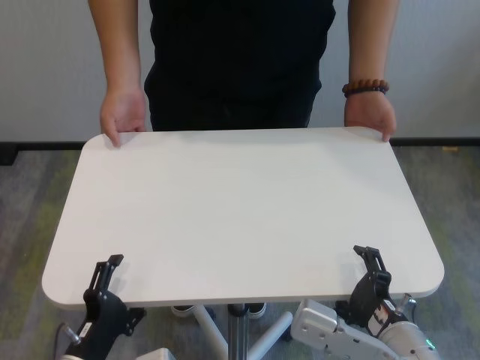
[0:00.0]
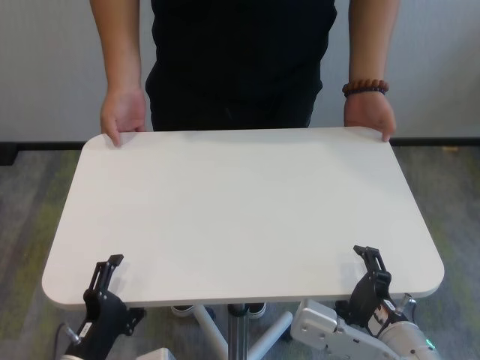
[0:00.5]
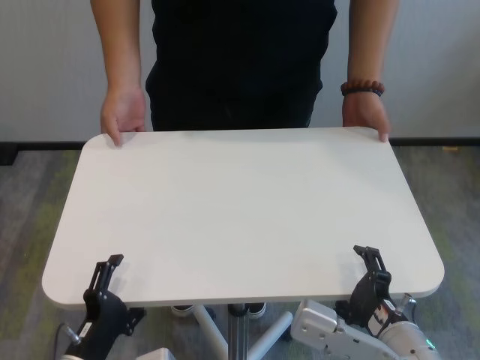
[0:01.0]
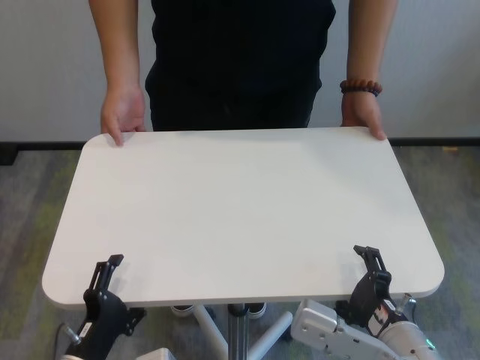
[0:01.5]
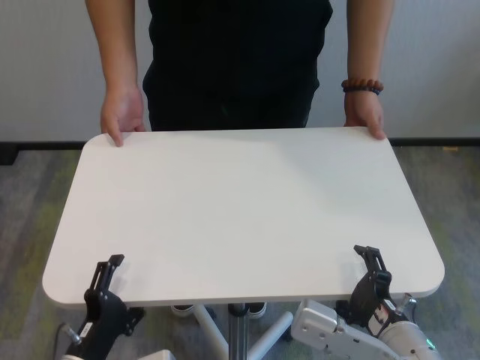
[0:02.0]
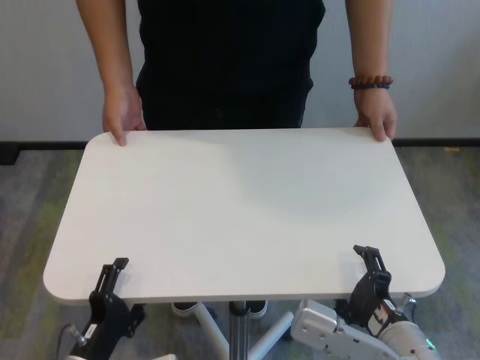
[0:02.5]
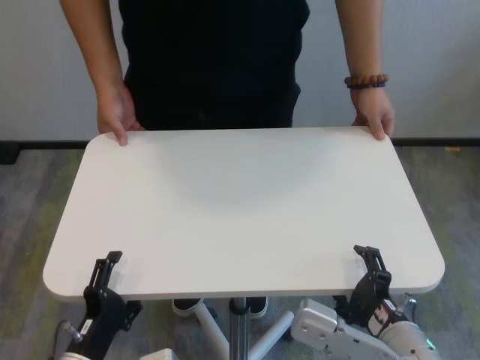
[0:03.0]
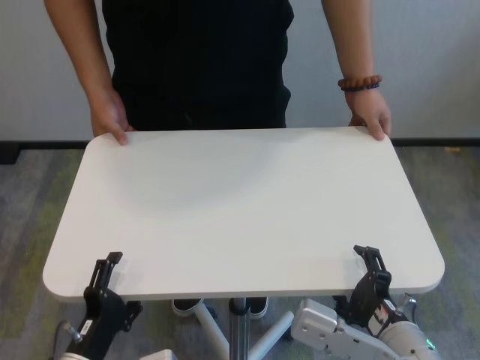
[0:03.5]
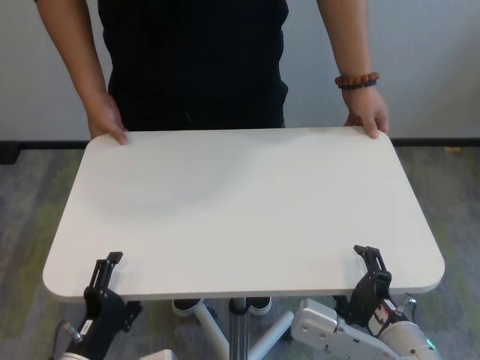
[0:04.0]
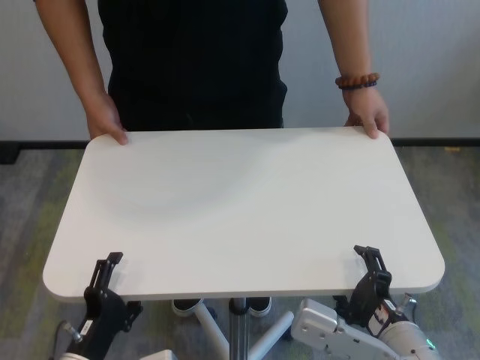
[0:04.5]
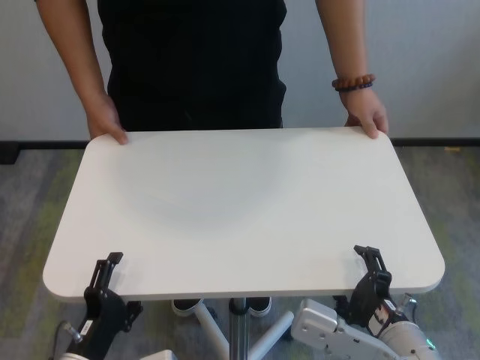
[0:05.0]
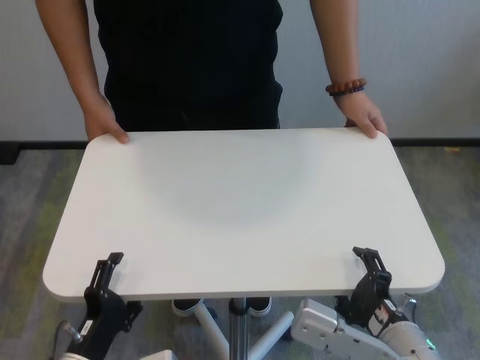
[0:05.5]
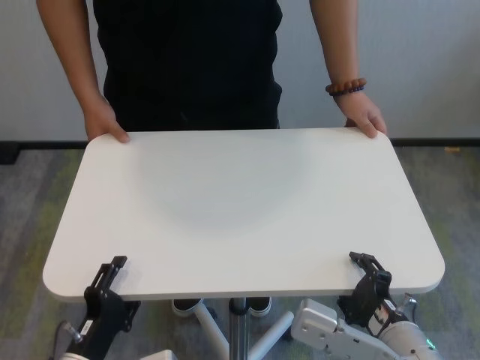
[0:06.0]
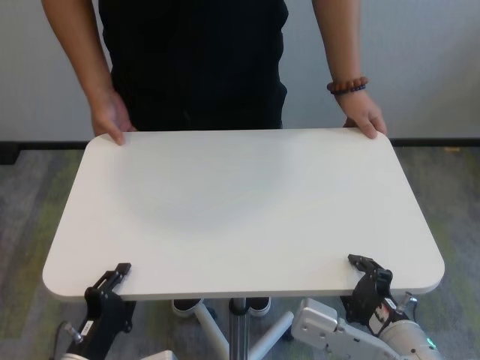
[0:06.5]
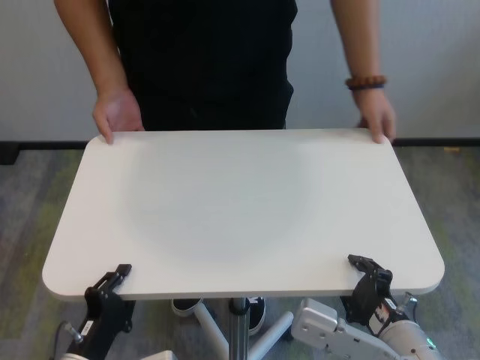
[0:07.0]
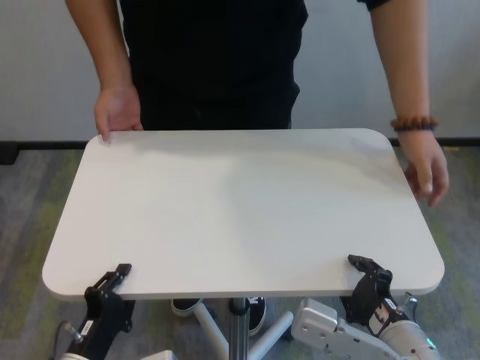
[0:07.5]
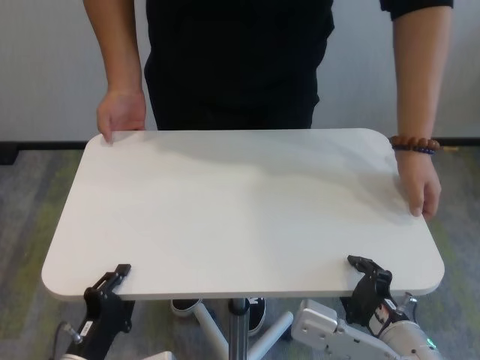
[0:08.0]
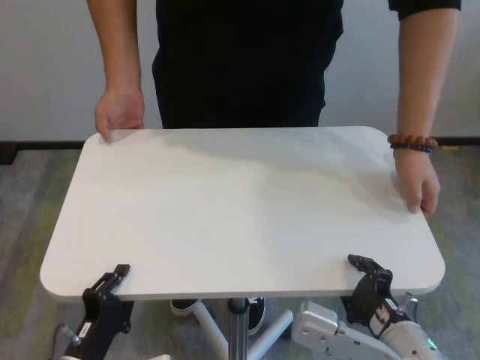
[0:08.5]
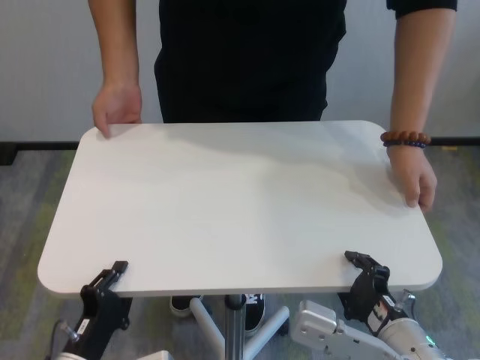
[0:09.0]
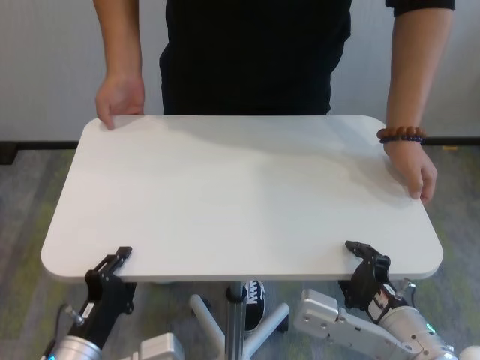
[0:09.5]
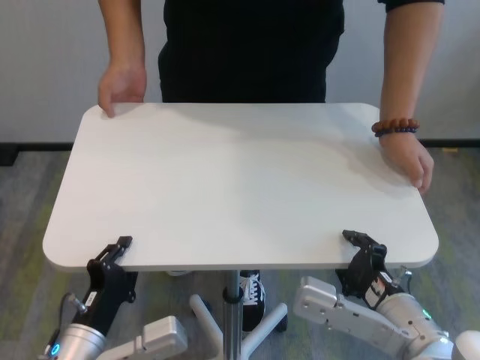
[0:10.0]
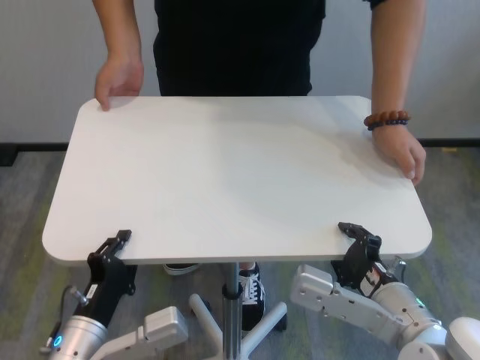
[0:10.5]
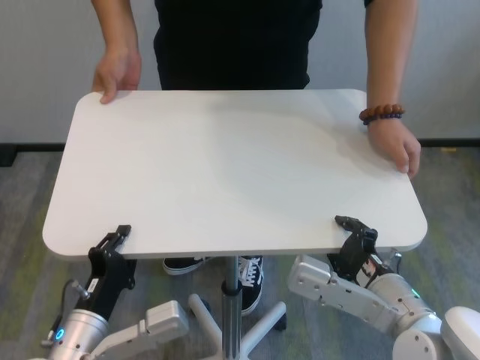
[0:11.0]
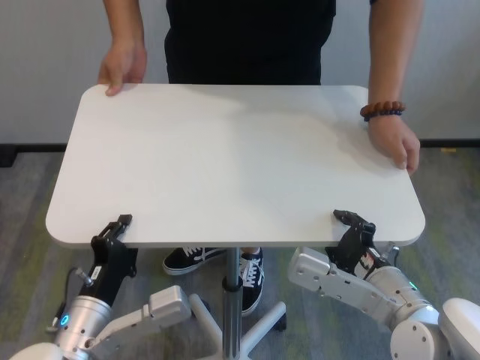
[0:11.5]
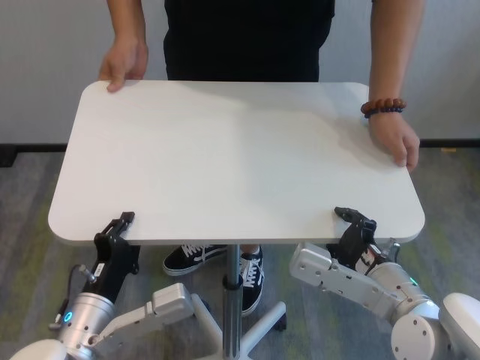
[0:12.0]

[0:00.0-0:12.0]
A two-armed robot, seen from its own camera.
Task of the whole recording: human machine collaborative table moving.
Step, 0:00.0 to 0:06.5: Grasp the table with both grippers.

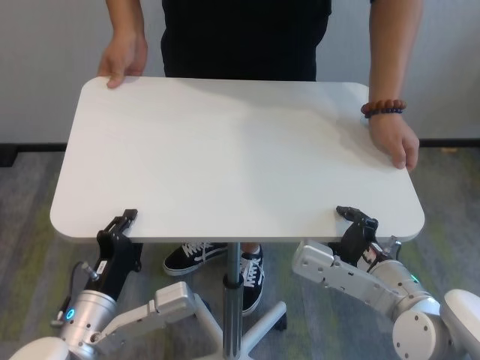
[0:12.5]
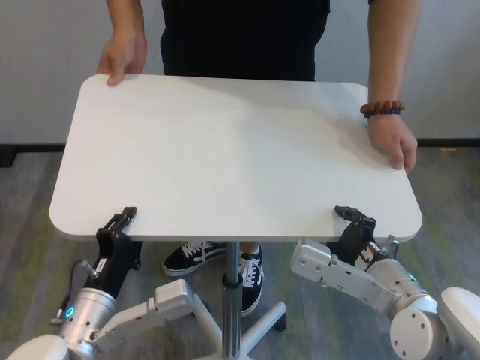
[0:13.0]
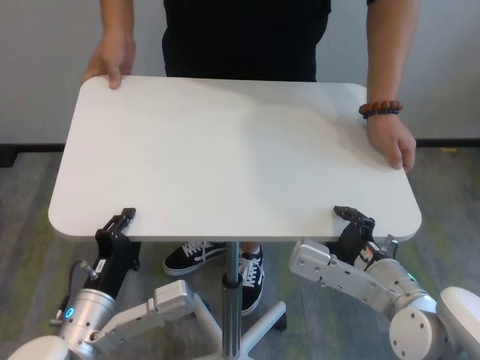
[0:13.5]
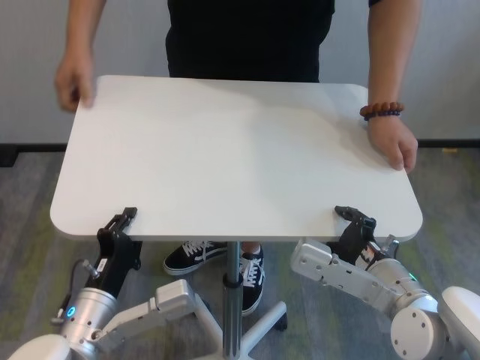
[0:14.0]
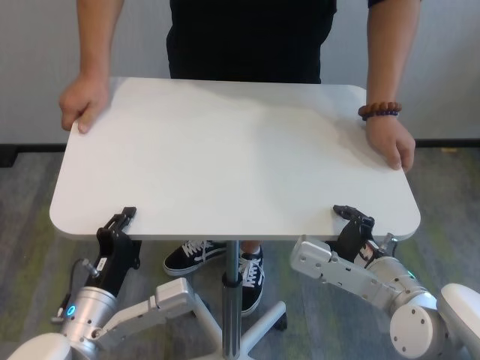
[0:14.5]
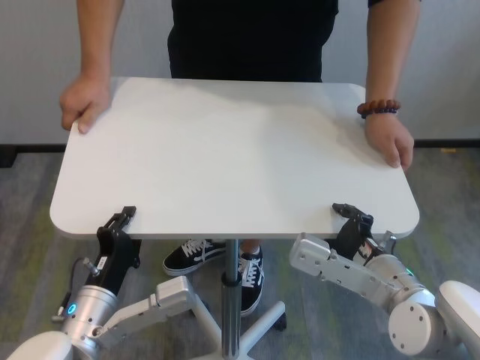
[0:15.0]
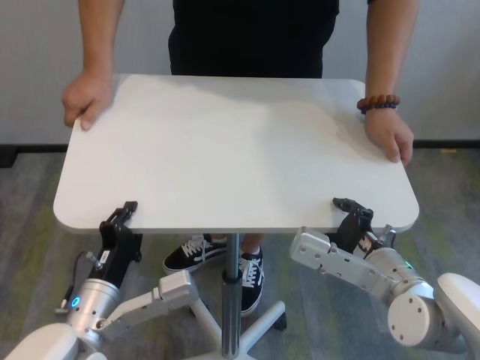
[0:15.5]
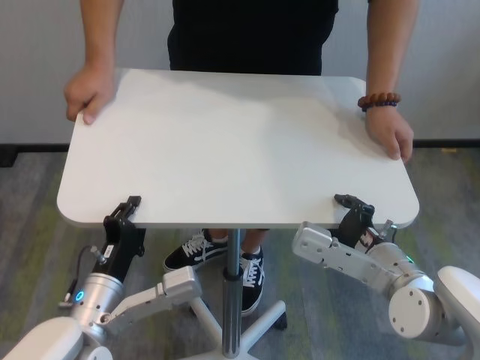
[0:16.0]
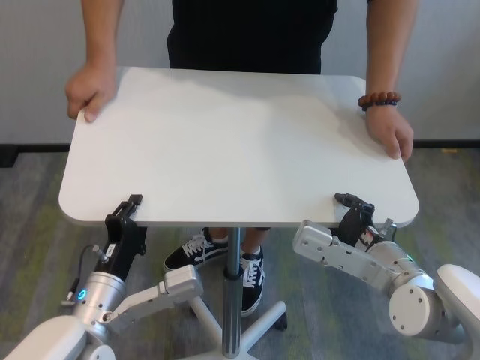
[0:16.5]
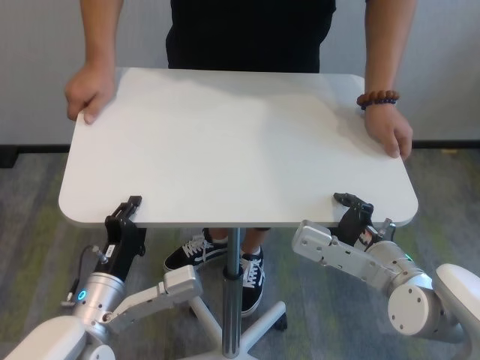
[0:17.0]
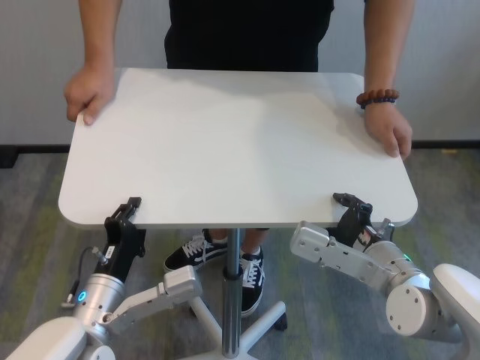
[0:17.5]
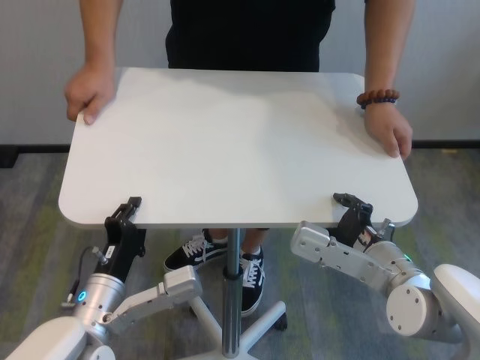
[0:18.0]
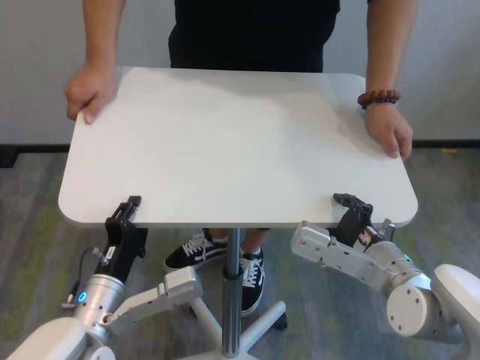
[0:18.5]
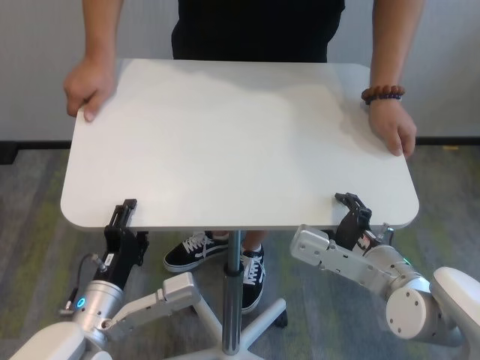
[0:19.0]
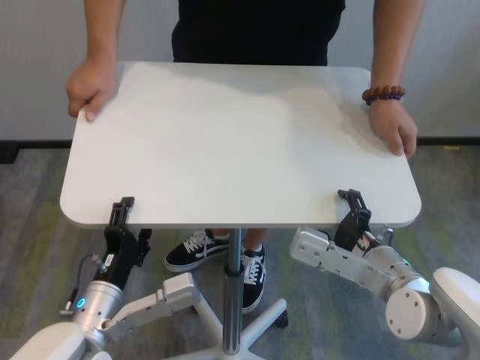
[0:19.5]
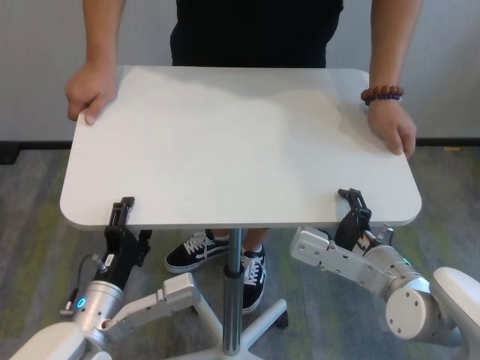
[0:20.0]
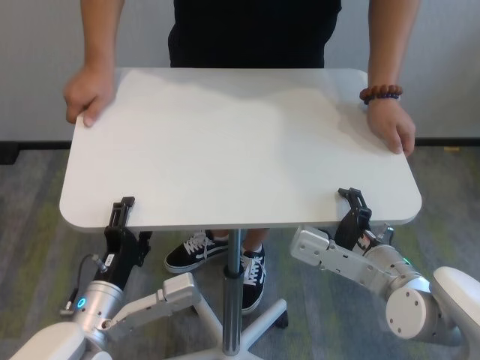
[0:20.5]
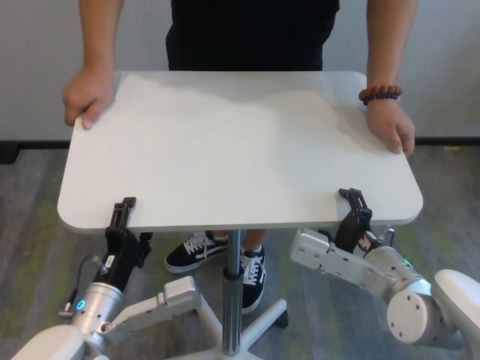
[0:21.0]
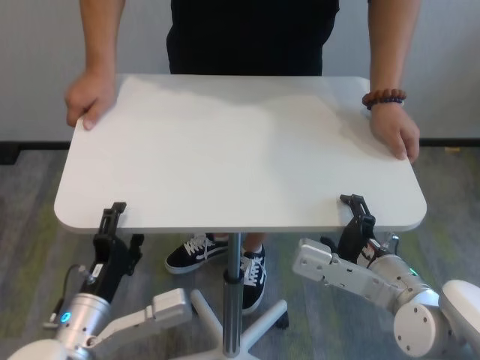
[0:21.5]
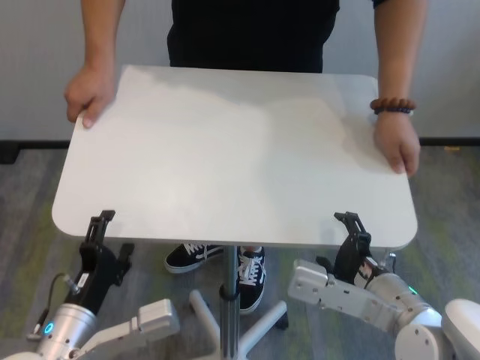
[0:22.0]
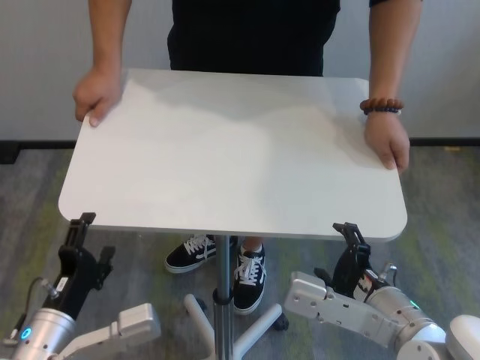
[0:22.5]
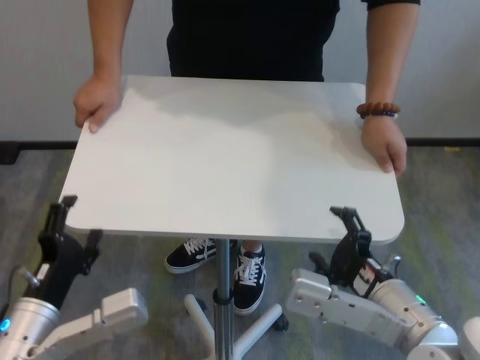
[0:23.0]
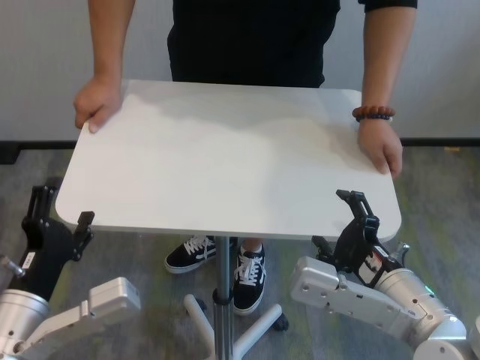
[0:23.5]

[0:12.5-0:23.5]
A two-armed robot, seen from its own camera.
Task of the whole recording: human machine collaborative table moving.
Step, 0:12.5 to 0:19.5: Move the table forward with both grippers.
